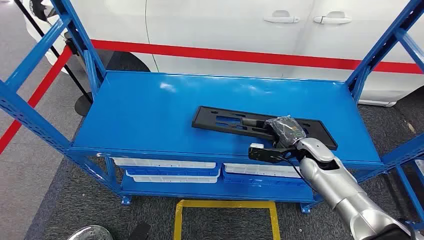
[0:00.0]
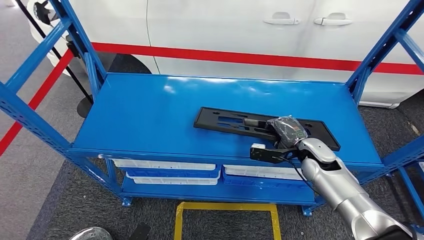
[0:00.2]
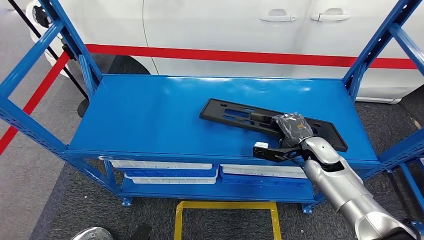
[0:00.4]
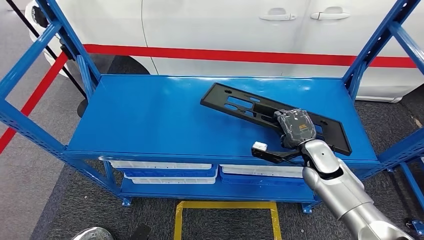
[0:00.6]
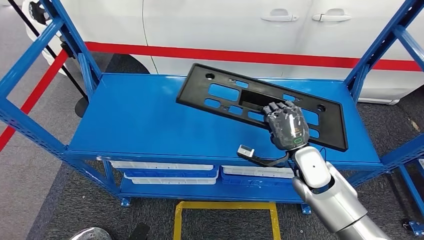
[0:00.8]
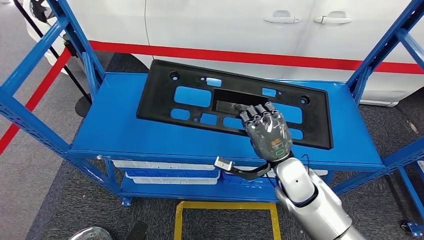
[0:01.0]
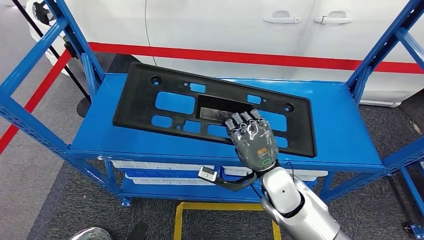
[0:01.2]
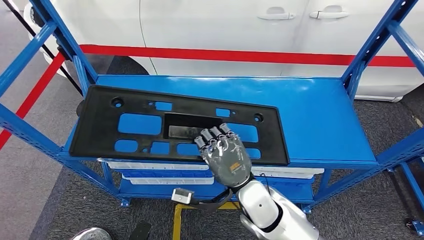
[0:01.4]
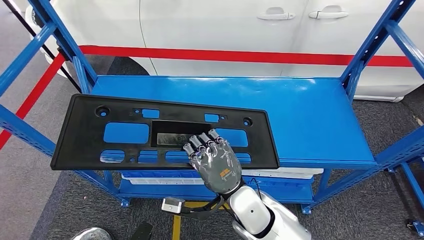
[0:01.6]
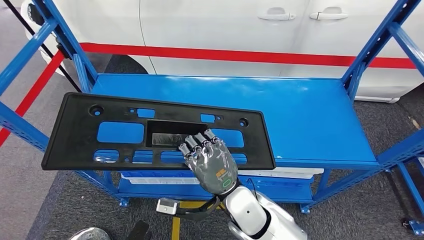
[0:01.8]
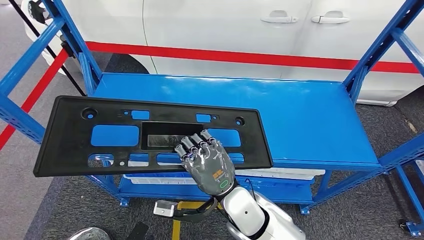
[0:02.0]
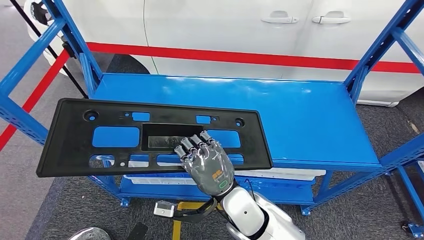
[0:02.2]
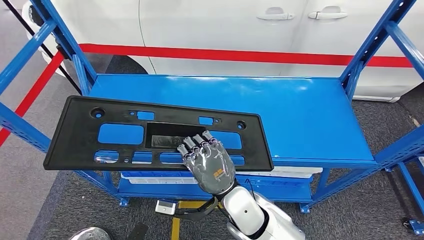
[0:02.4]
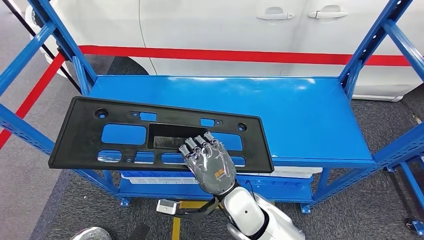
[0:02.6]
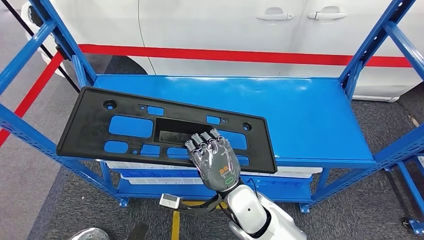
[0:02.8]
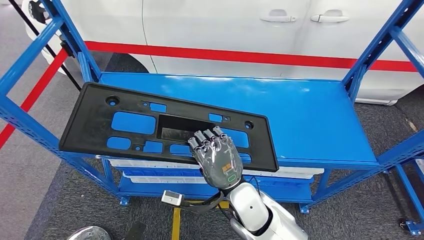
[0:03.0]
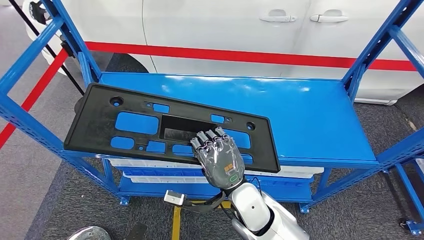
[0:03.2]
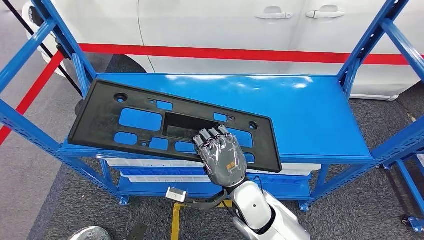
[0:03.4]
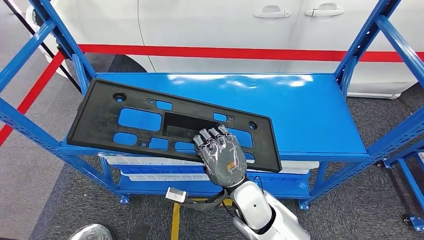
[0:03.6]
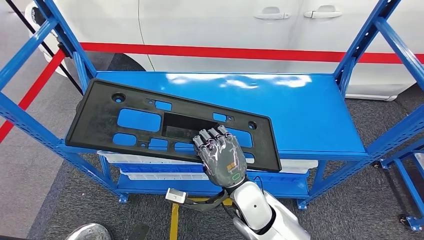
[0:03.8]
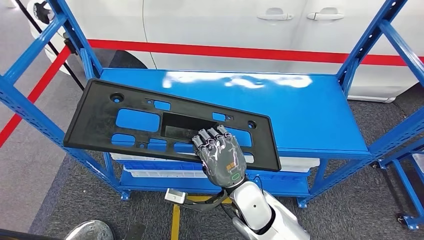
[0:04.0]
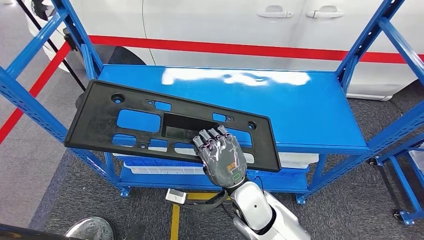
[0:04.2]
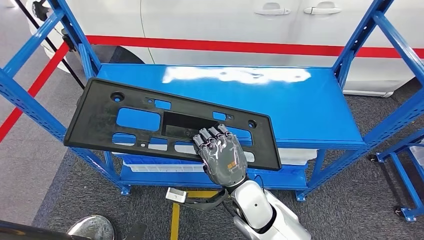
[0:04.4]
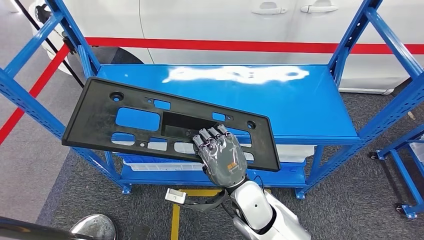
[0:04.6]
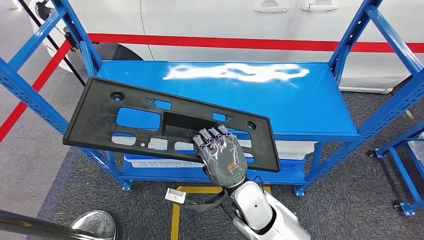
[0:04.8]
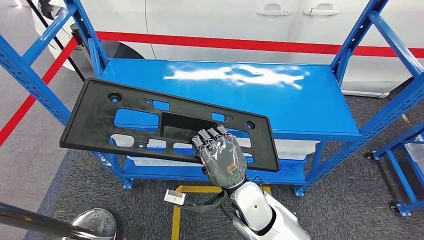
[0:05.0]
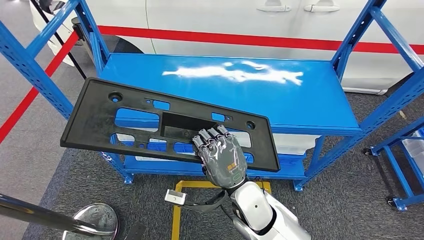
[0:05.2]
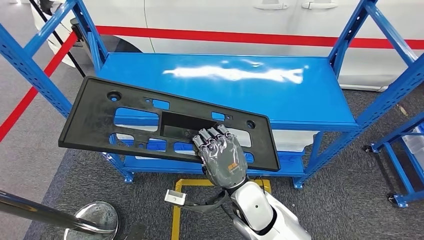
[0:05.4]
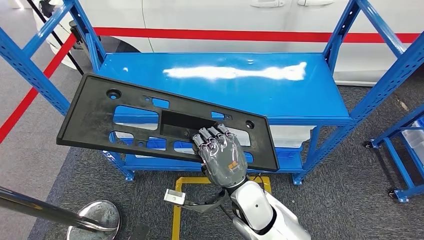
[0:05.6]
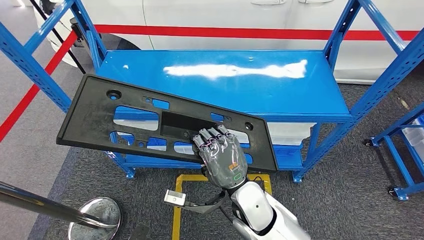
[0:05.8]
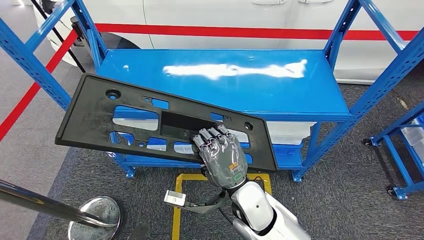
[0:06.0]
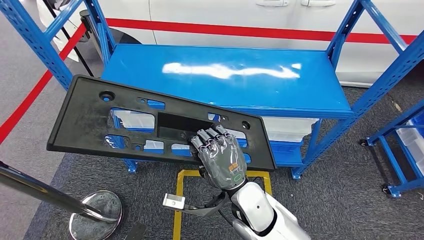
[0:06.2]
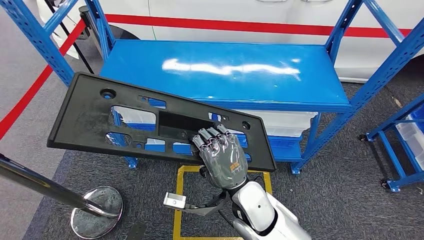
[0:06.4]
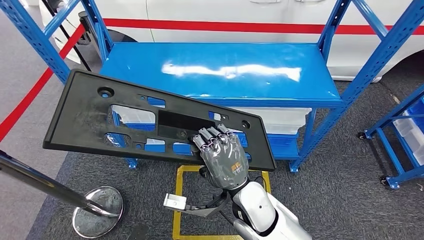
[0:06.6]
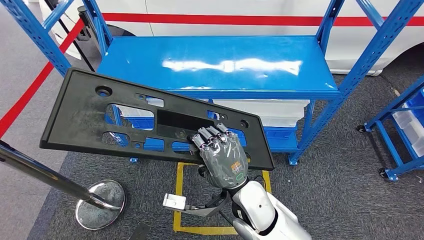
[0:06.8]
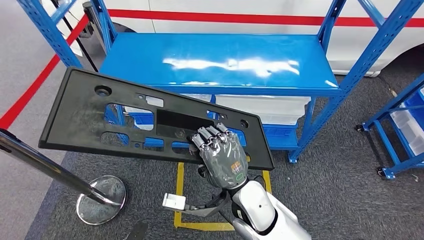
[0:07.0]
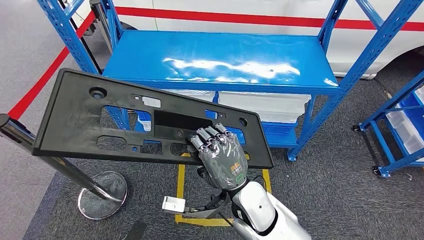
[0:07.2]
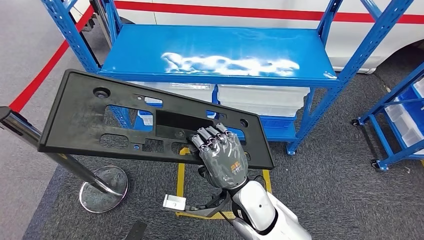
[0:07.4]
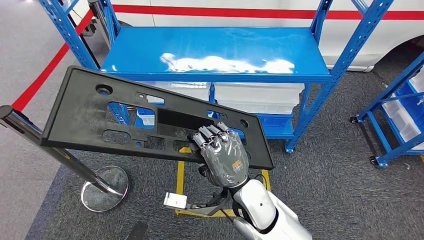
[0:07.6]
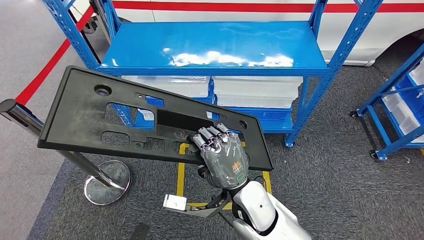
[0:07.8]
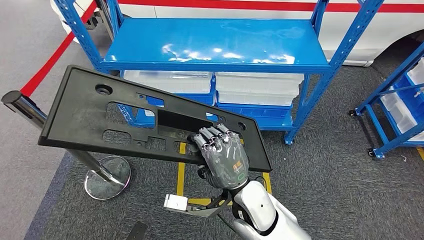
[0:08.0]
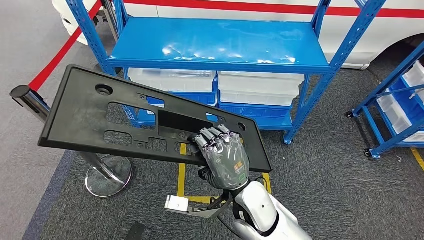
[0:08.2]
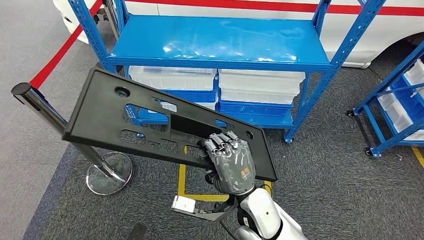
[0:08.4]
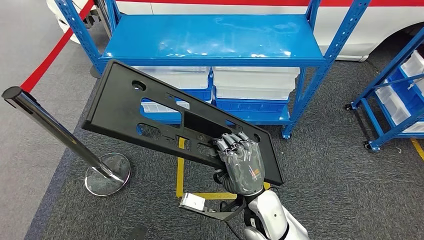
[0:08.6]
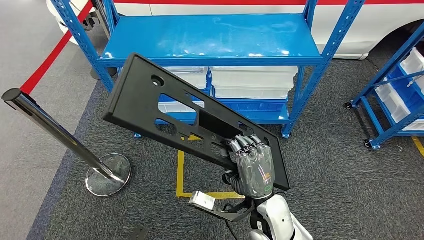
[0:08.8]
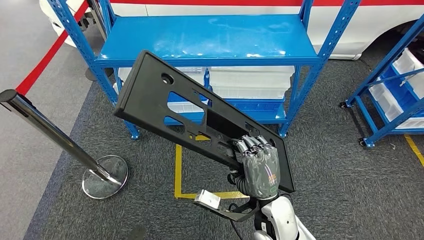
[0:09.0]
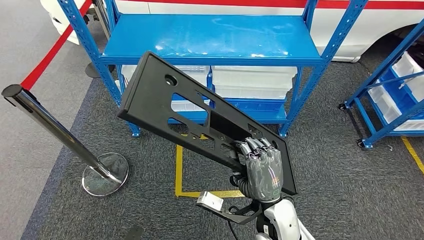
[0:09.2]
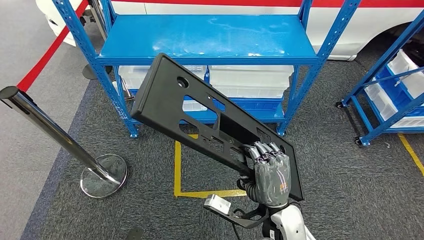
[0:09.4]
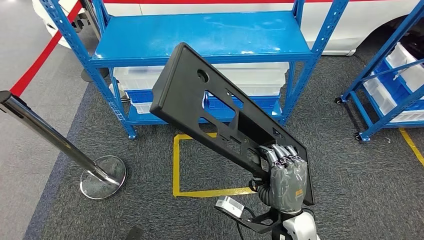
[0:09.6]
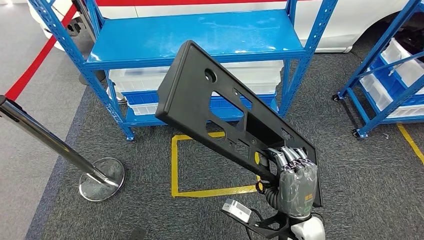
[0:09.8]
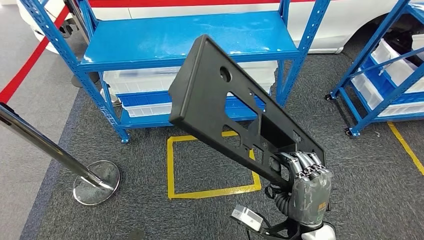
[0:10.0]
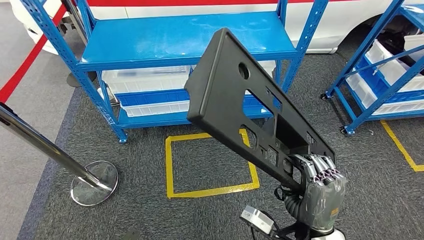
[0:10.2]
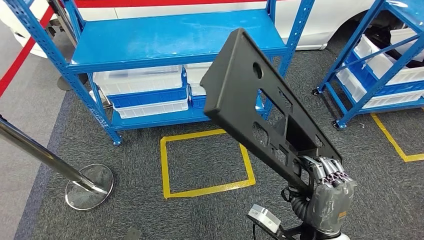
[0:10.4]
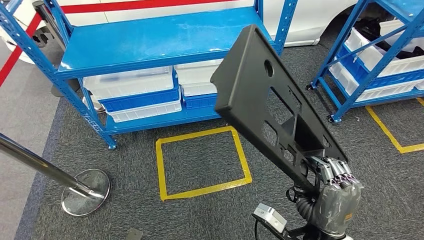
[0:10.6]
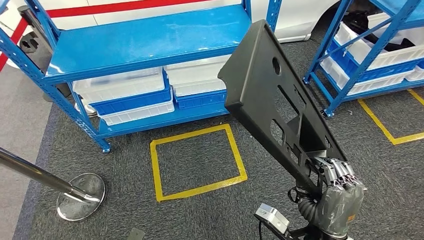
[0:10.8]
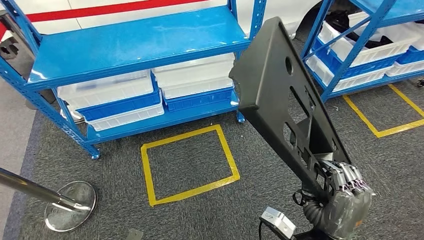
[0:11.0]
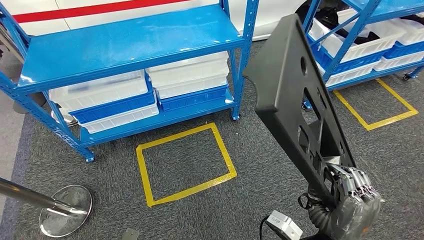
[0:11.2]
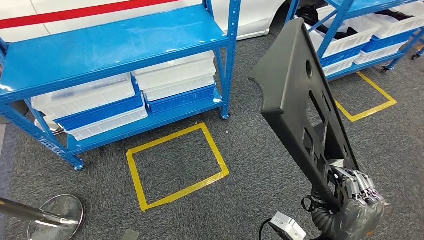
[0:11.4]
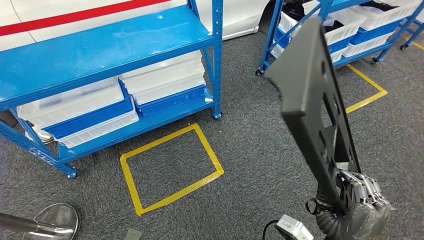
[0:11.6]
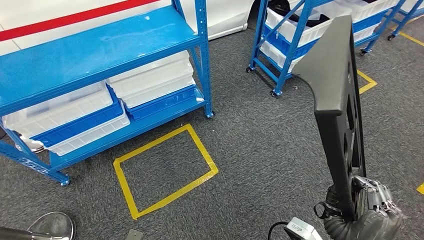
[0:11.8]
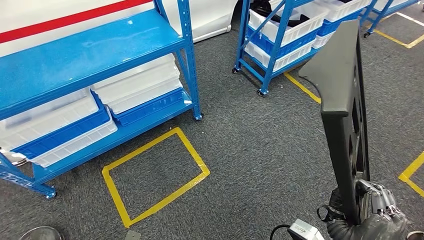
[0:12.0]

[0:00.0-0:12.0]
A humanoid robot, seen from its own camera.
Step, 0:00.0 to 0:03.4: Pick up the large material from the shelf.

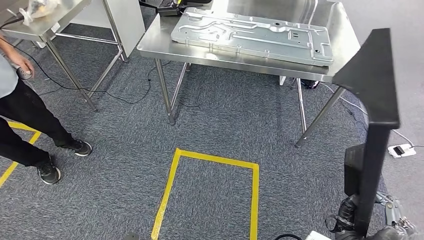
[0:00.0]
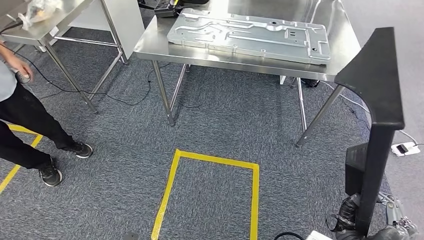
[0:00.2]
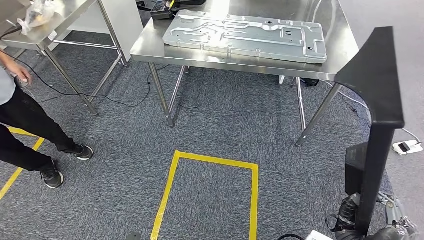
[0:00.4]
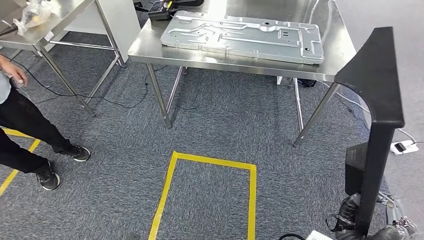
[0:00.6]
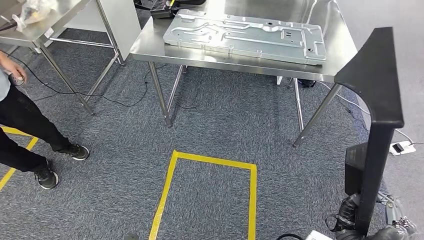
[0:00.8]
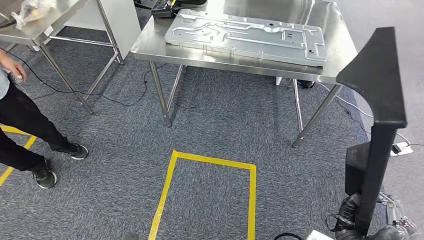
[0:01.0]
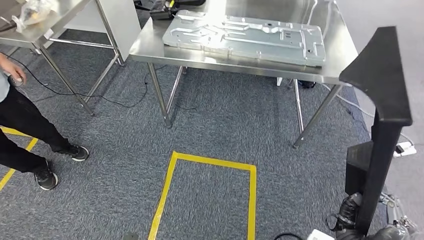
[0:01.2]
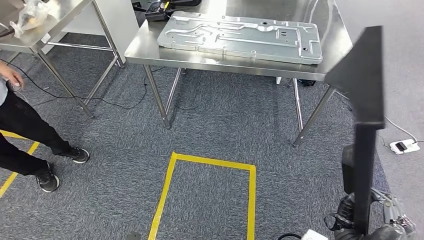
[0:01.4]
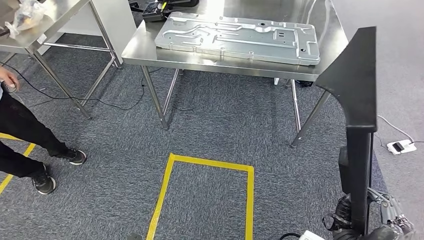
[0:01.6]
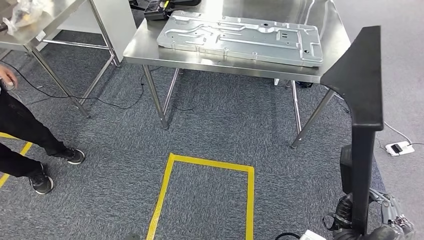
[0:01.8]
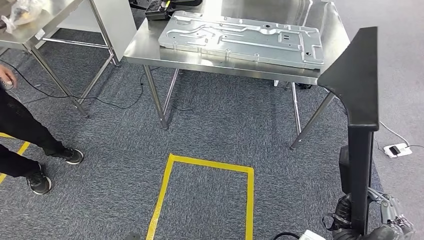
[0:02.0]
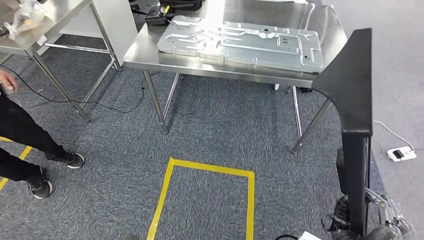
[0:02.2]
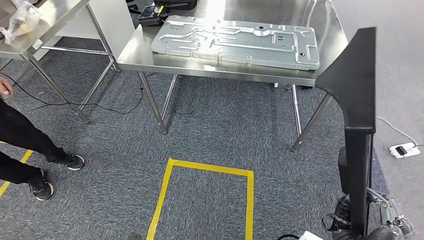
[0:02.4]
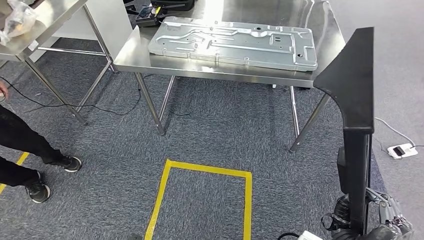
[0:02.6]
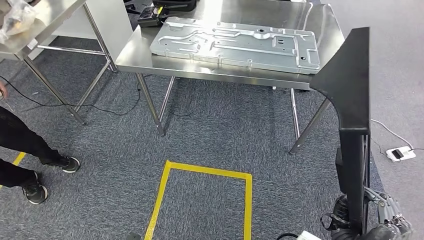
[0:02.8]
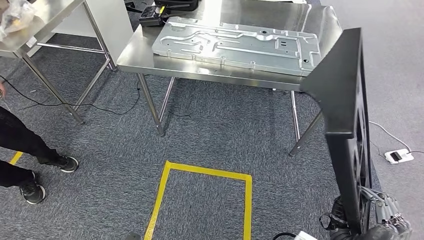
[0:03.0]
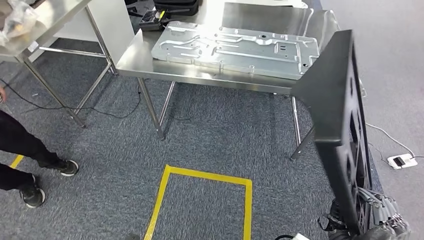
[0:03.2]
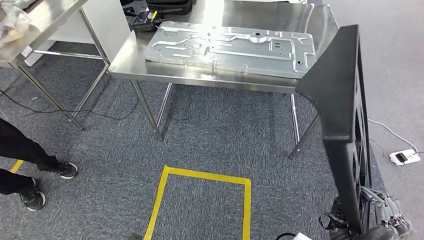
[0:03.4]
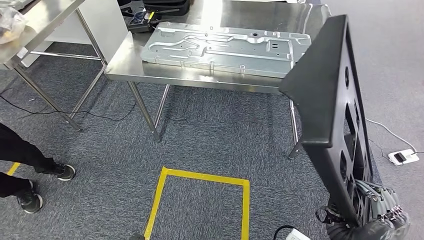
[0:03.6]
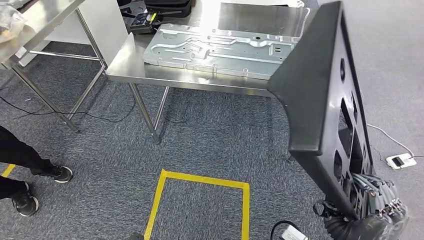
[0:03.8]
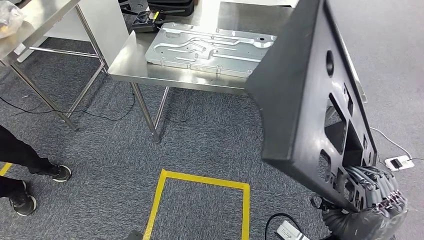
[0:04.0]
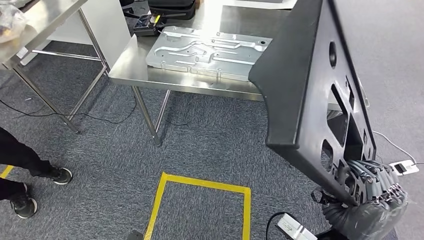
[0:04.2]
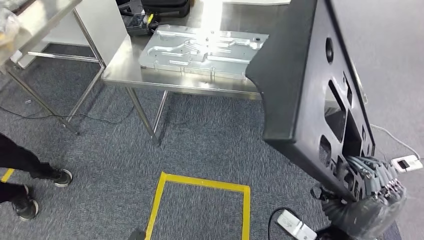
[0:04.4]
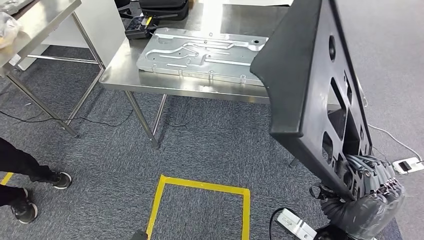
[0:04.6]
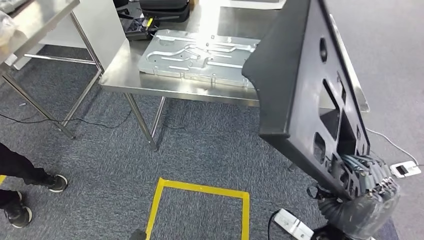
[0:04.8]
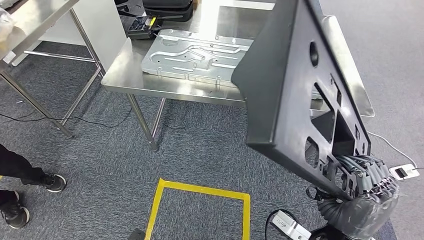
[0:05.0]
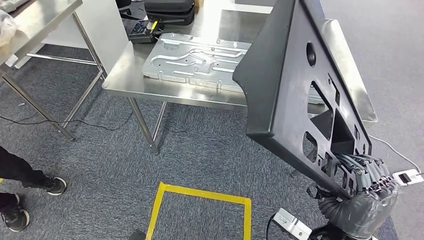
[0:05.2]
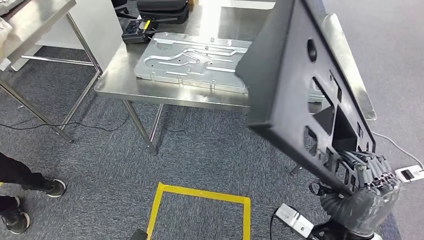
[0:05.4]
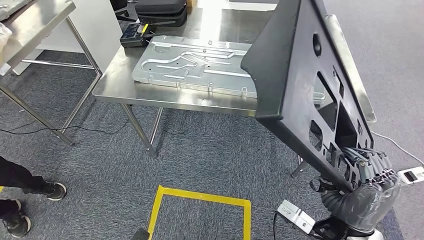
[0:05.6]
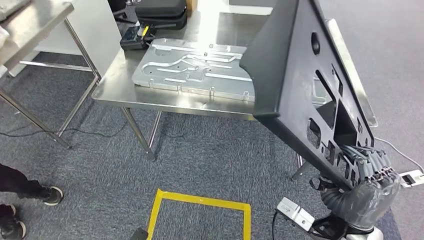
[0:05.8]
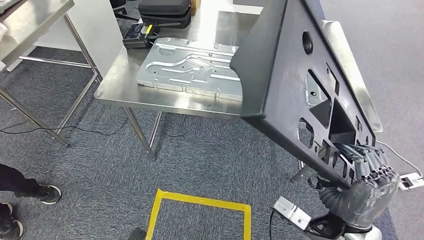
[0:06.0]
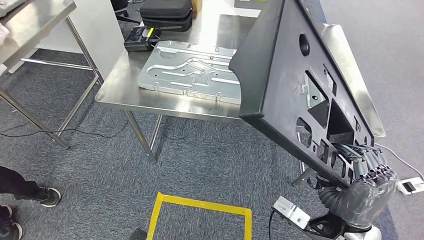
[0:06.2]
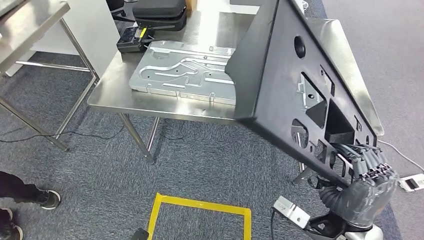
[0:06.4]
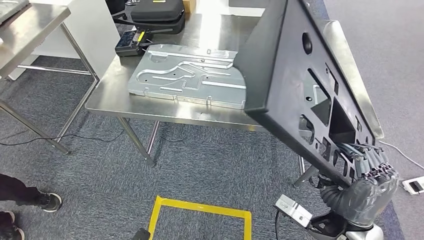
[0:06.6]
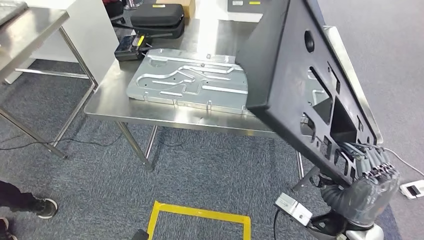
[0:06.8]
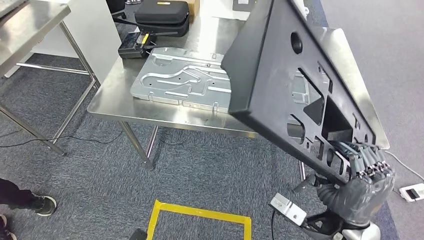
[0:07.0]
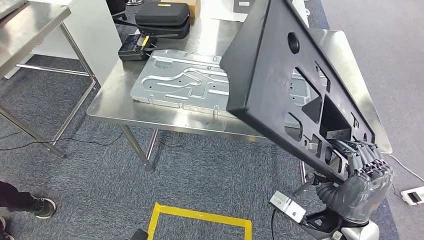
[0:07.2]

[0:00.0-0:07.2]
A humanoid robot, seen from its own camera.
Step, 0:00.0 to 0:04.8: Move the large material to the workbench.
